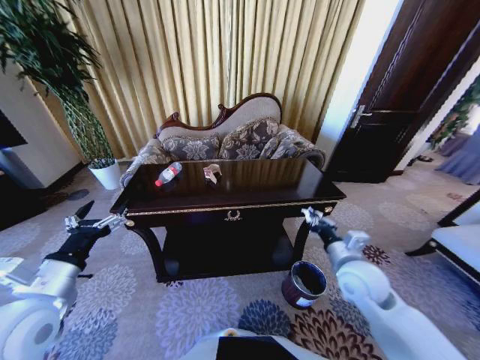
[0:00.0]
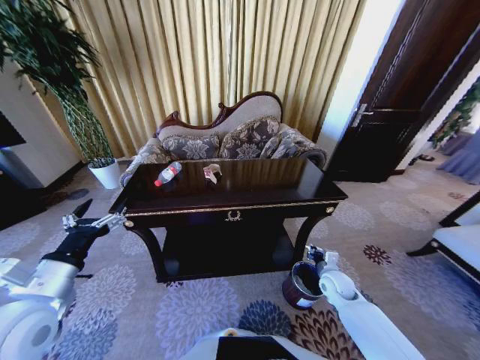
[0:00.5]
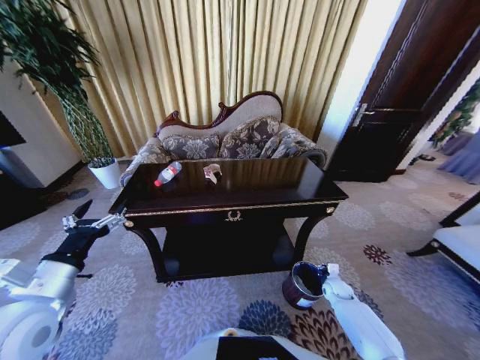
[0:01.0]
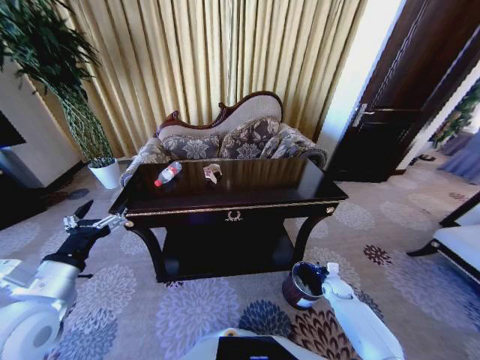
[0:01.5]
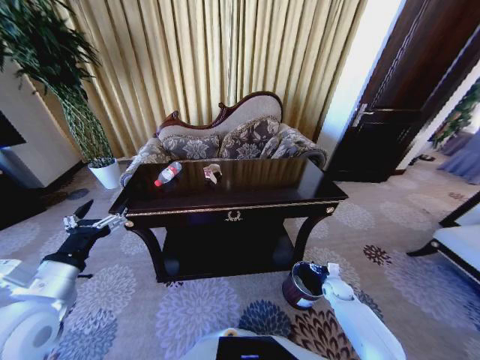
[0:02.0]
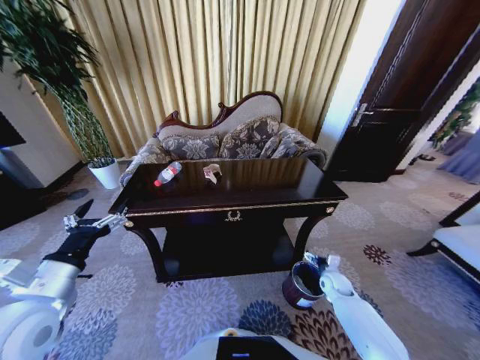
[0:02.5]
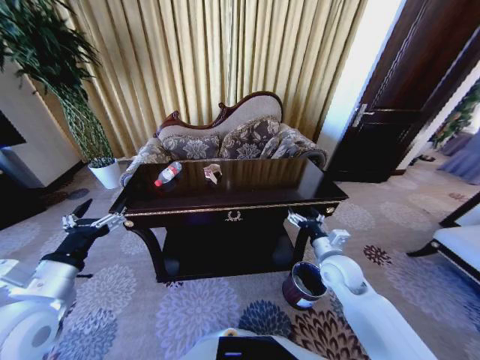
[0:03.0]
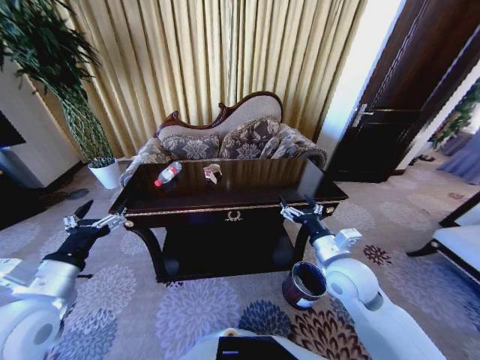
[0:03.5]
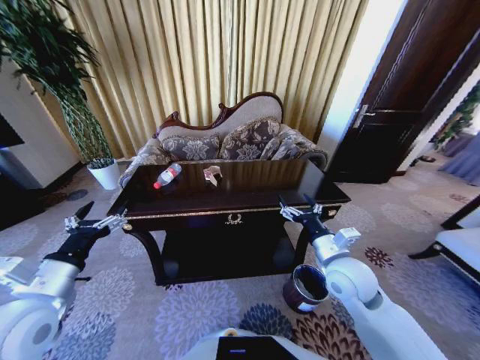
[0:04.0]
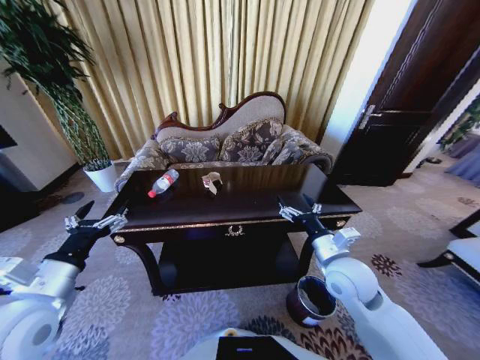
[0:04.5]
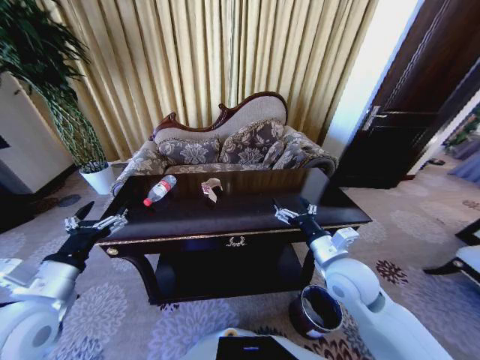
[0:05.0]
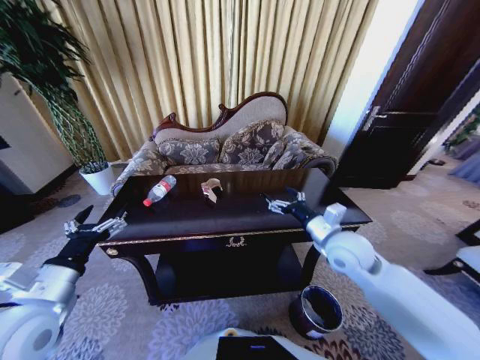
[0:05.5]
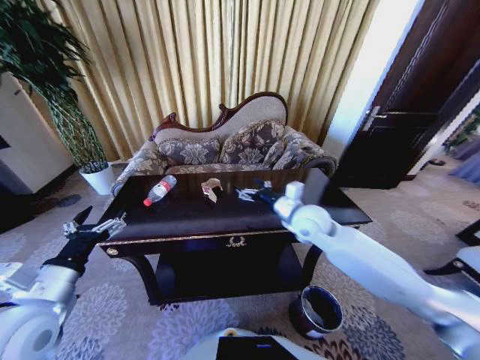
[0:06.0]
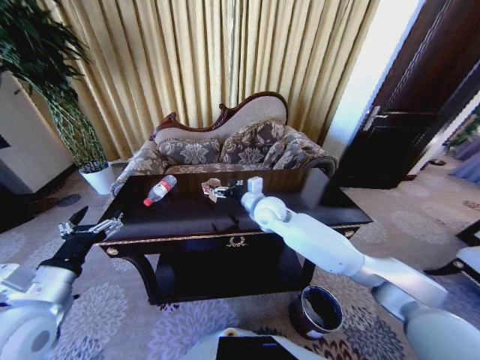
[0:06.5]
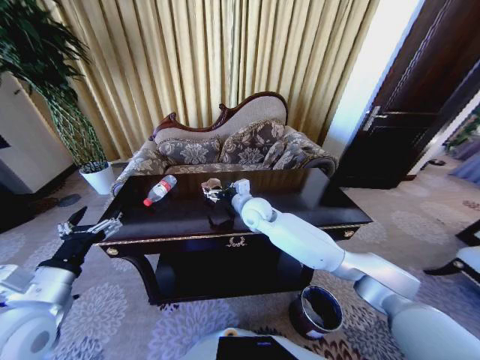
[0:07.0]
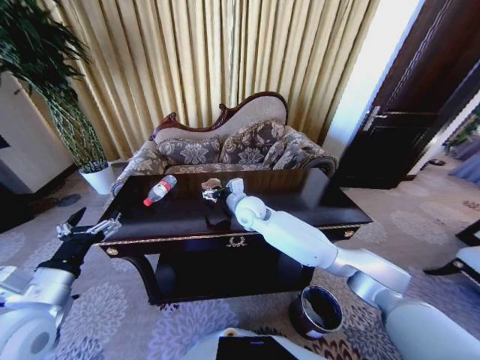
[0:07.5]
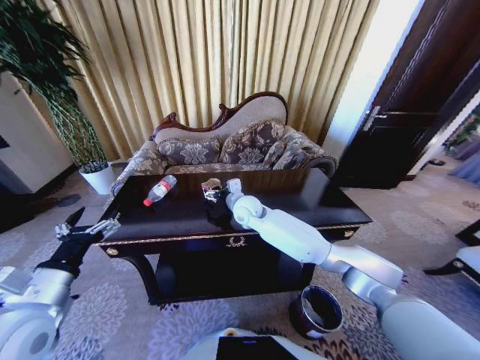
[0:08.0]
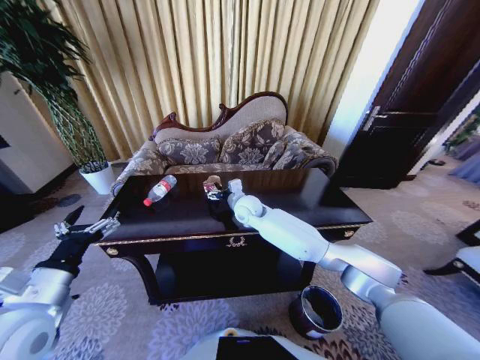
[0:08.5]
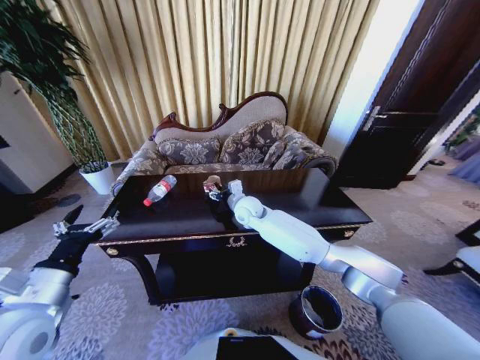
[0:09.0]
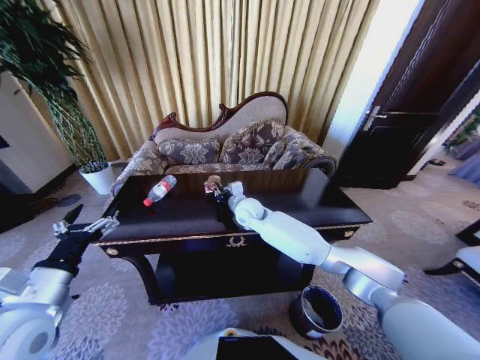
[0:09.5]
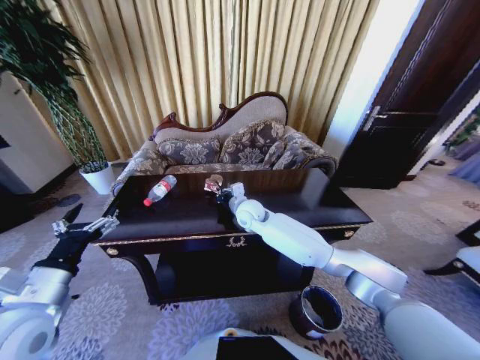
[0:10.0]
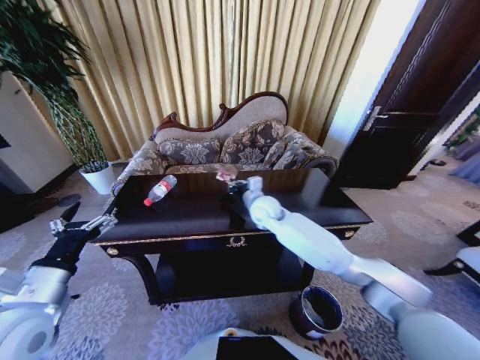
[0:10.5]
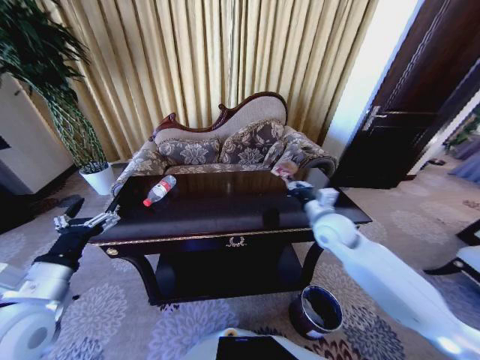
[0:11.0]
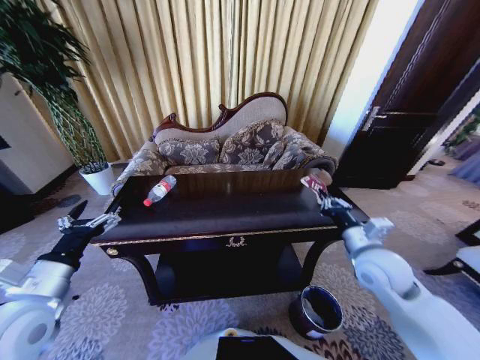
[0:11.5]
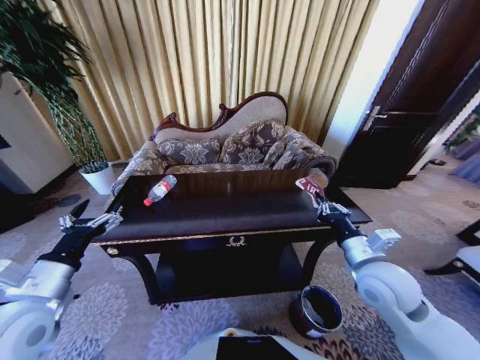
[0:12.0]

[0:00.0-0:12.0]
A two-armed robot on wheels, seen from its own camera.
Task of the whole recording: Move to the front of the table and place the trash on the table into the trash bin.
0:00.0 to 0:02.0: The right gripper shifts about 30 cm downward, and opens its fingers.
0:02.0 to 0:04.0: The right gripper moves upward and to the left, approximately 35 cm.
0:04.0 to 0:06.0: The right gripper is displaced forward and to the left by approximately 15 cm.
0:06.0 to 0:08.0: The right gripper shifts approximately 20 cm to the left and forward.
0:08.0 to 0:10.0: The right gripper closes its fingers.
0:10.0 to 0:12.0: The right gripper shifts roughly 35 cm to the right and backward.

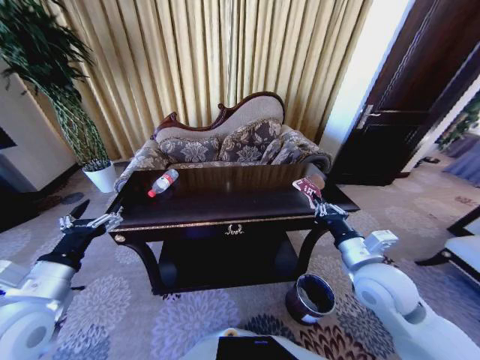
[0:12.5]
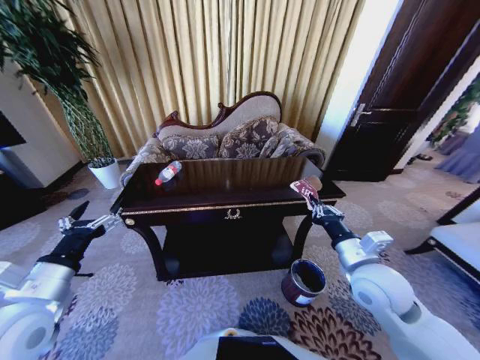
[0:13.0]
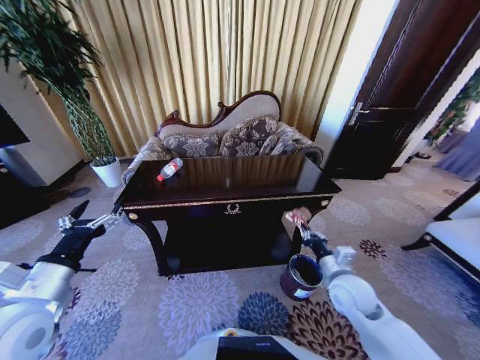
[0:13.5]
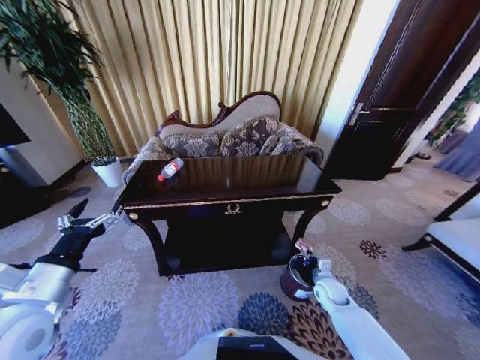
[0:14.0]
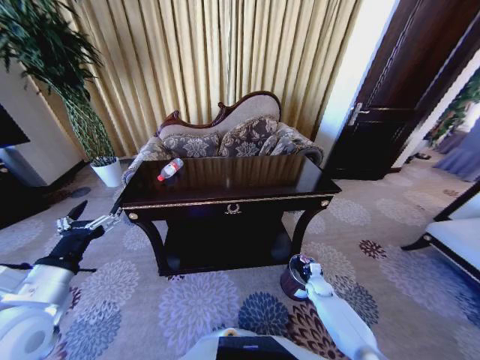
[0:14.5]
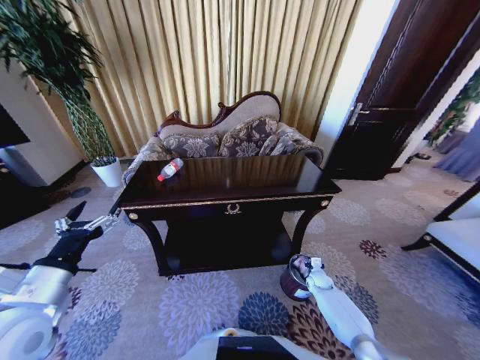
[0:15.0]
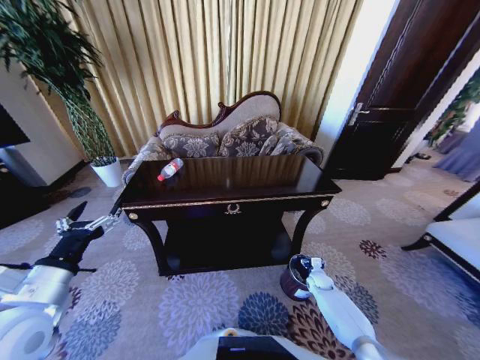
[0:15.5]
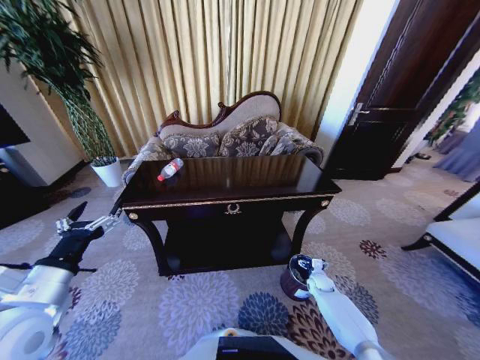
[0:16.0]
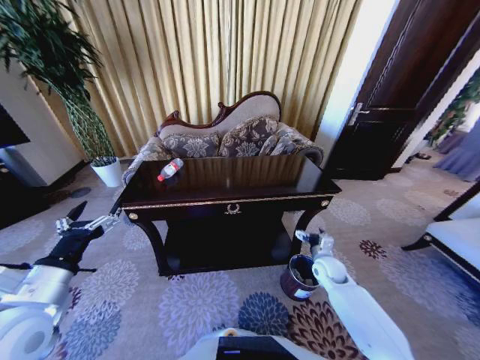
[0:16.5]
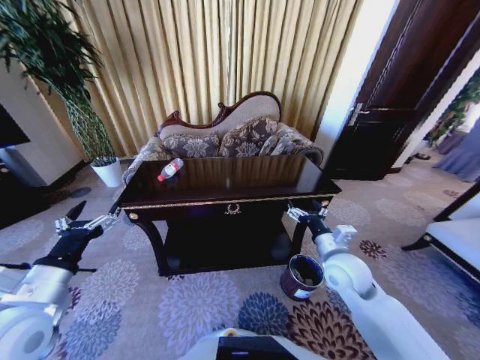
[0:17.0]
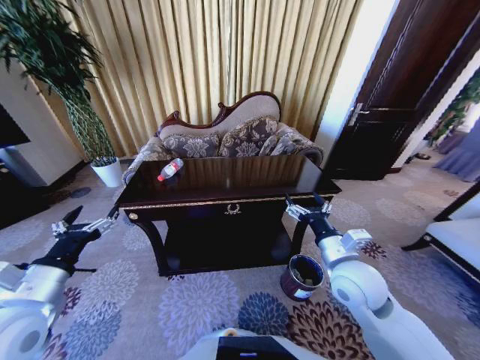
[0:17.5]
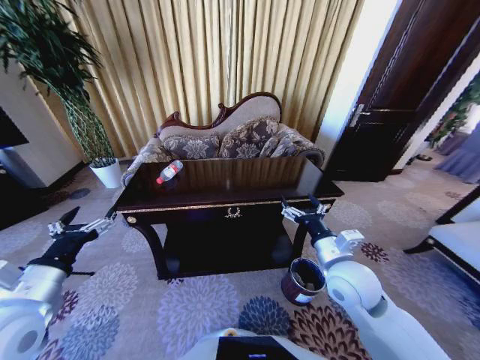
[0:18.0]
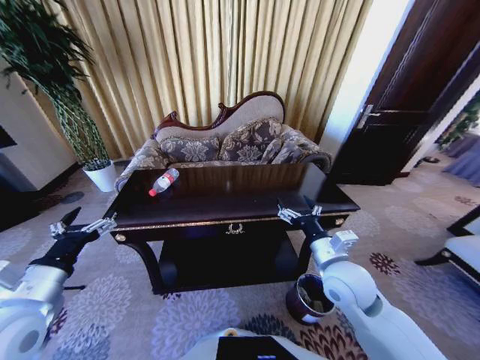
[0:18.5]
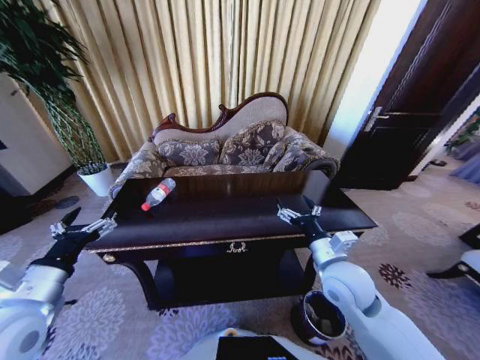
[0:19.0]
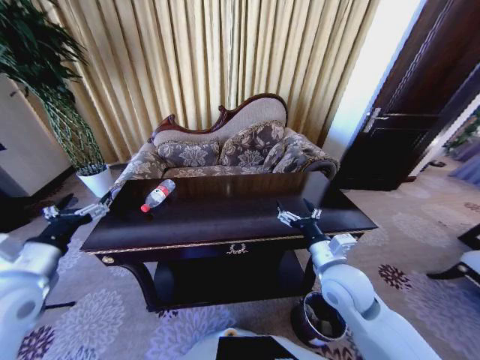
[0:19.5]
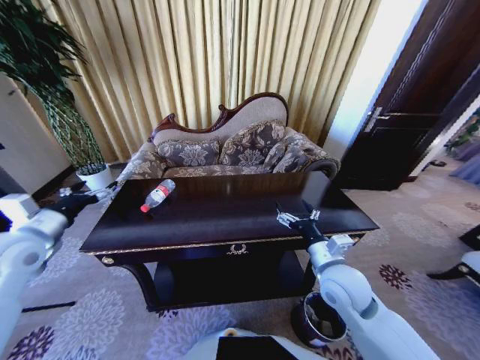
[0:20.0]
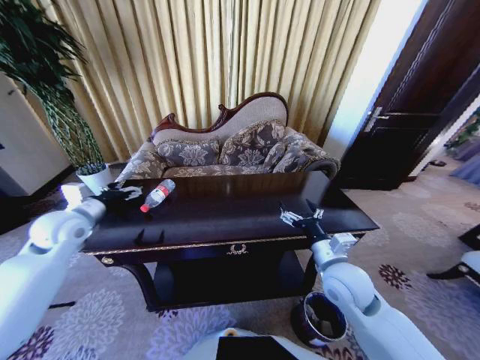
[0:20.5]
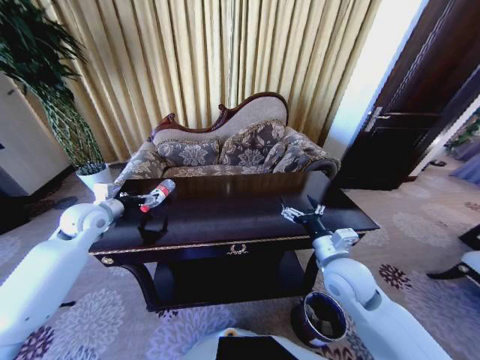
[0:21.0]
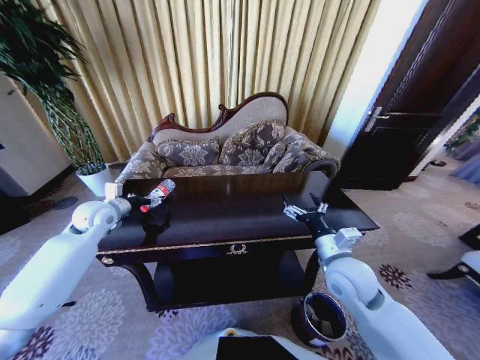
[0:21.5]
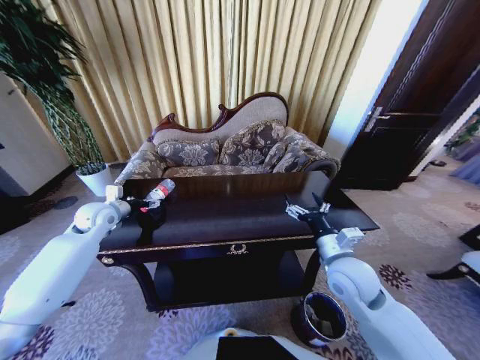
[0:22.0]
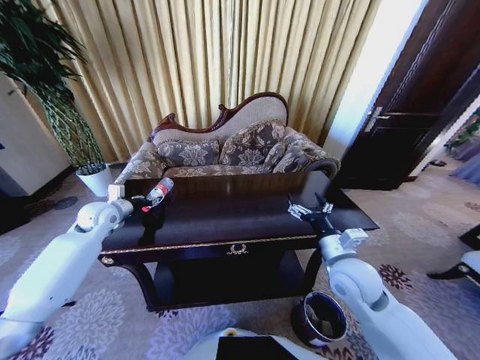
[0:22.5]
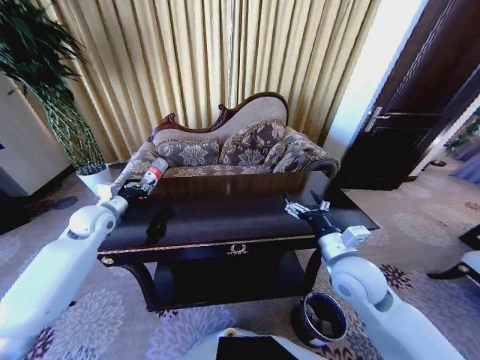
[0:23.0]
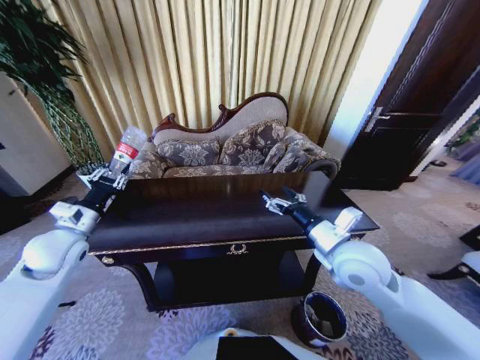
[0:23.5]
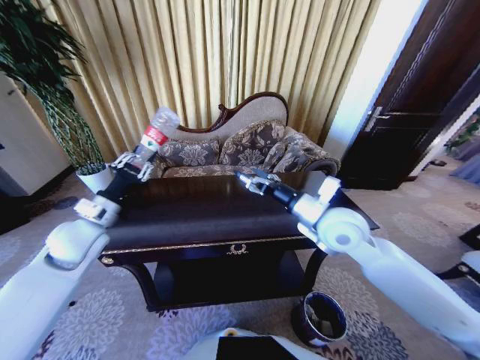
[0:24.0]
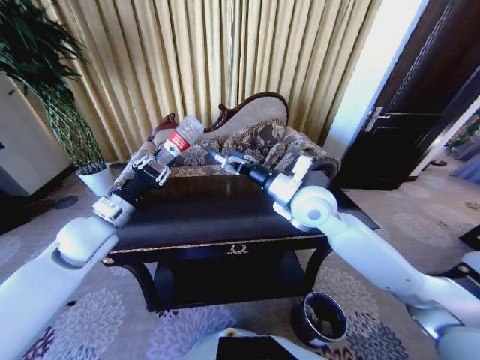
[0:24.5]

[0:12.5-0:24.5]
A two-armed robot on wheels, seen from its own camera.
Task of the whole recording: Move to the front of the table and place the trash on the table into the trash bin.
0:12.5 to 0:14.5: The right gripper is displaced downward by some 35 cm.
0:14.5 to 0:16.5: The right gripper shifts approximately 20 cm upward, and opens.
0:16.5 to 0:18.5: The right gripper shifts approximately 20 cm upward, backward and to the left.
0:18.5 to 0:20.5: The left gripper travels forward by approximately 20 cm.
0:20.5 to 0:22.5: The left gripper moves forward and downward, about 10 cm, and closes up.
0:22.5 to 0:24.5: The right gripper goes about 20 cm upward, forward and to the left, while the left gripper travels backward, to the right and upward by approximately 15 cm.

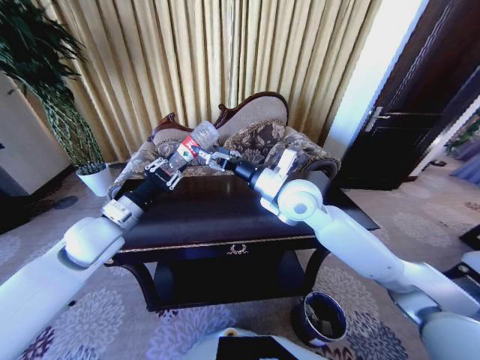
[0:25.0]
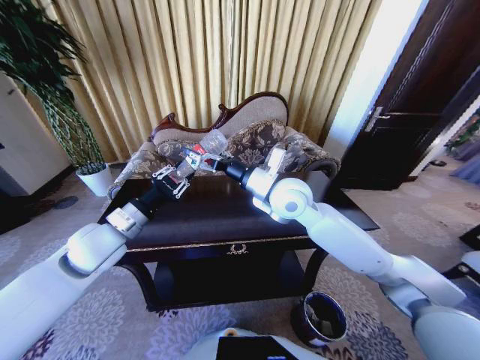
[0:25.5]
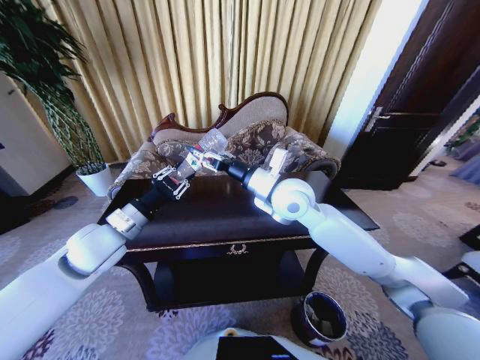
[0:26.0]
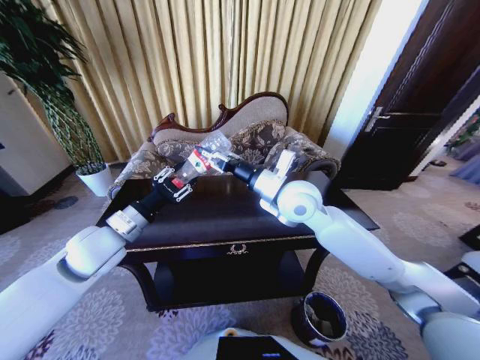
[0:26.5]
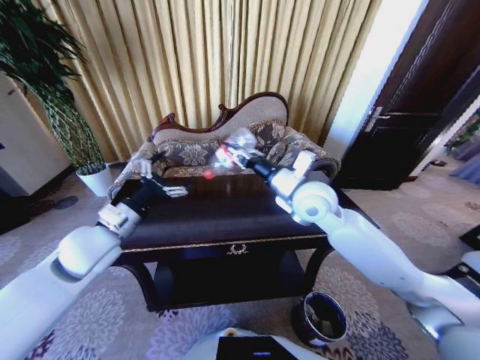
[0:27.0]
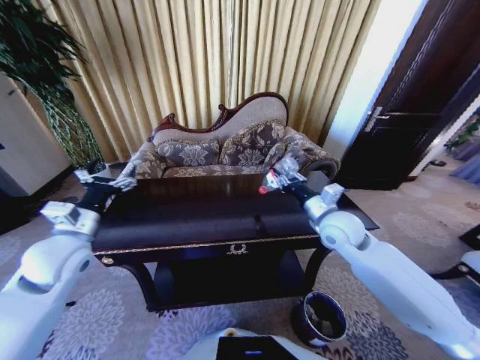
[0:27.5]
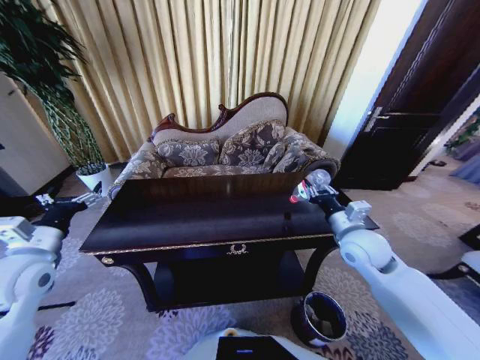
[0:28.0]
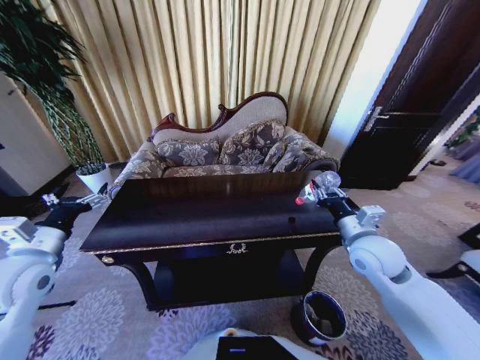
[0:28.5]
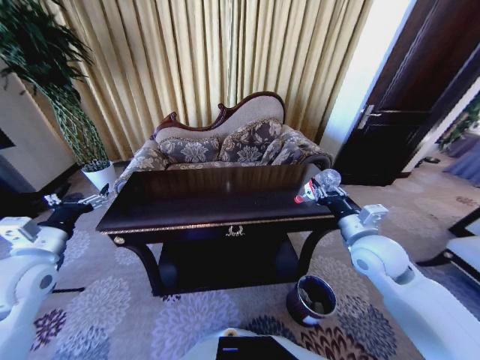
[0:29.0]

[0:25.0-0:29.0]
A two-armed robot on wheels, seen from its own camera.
Task of the whole recording: Move to the front of the table and place the trash on the table into the trash bin.
0:25.0 to 0:27.0: The left gripper opens up. The right gripper closes up.
0:27.0 to 0:29.0: The left gripper travels to the left and backward by some 15 cm; the right gripper heads to the right, backward and downward, covering approximately 20 cm.
